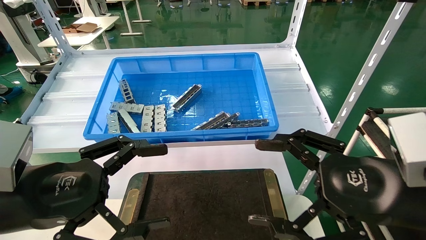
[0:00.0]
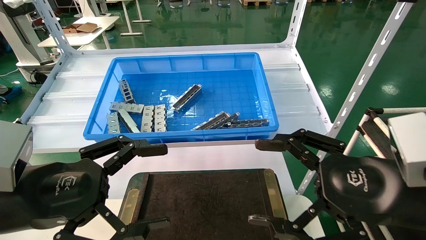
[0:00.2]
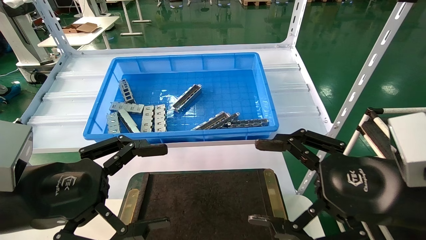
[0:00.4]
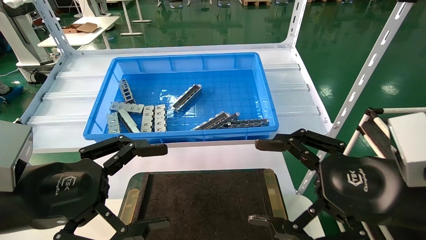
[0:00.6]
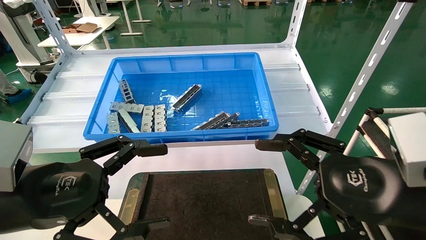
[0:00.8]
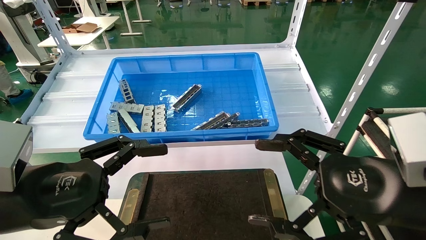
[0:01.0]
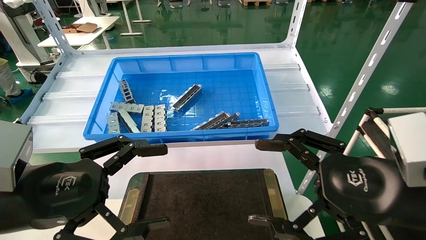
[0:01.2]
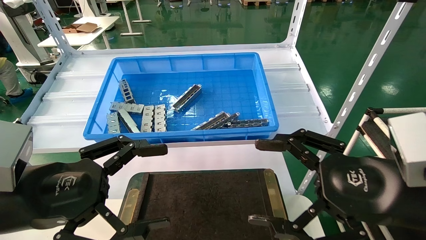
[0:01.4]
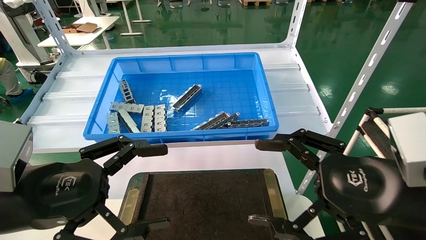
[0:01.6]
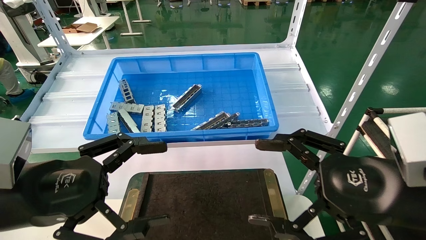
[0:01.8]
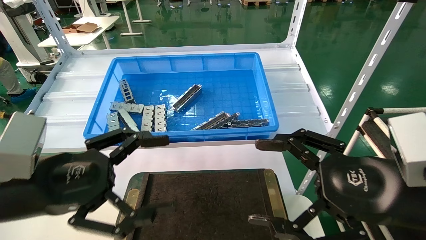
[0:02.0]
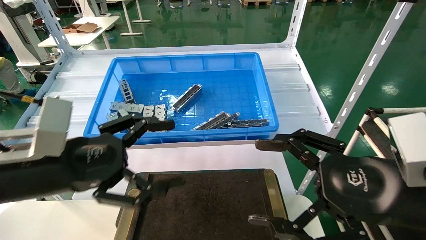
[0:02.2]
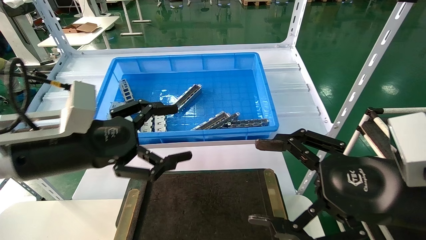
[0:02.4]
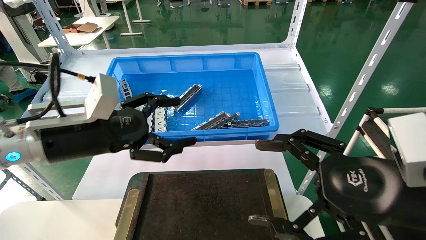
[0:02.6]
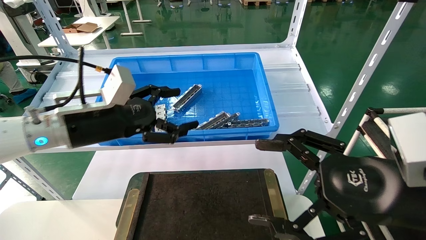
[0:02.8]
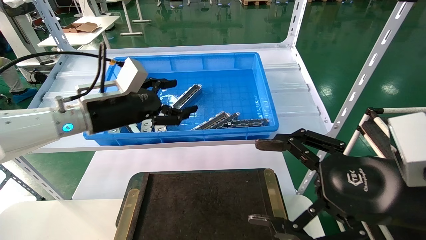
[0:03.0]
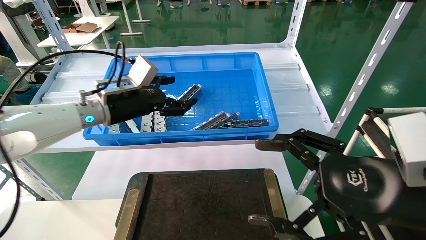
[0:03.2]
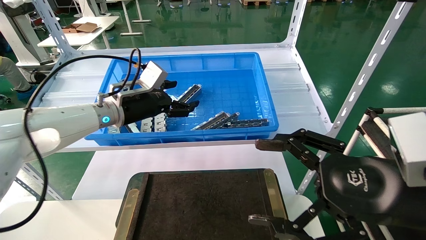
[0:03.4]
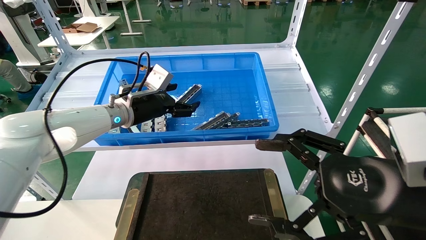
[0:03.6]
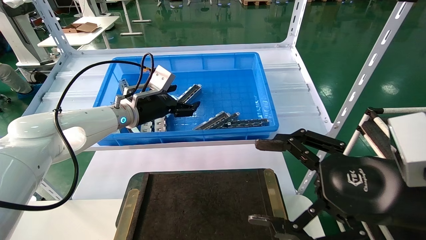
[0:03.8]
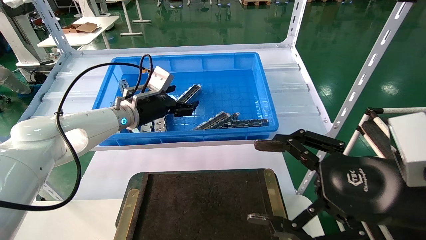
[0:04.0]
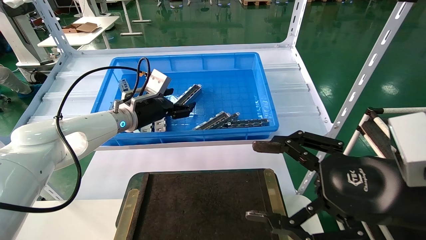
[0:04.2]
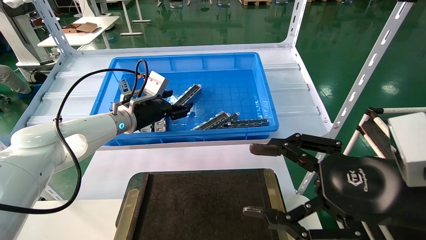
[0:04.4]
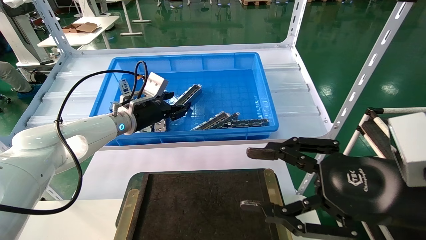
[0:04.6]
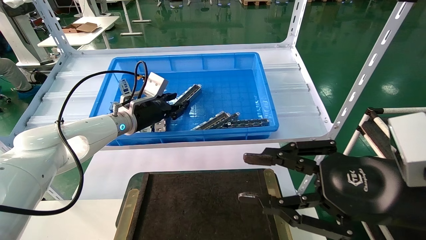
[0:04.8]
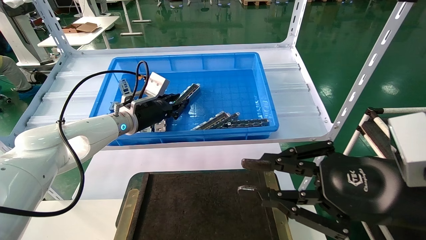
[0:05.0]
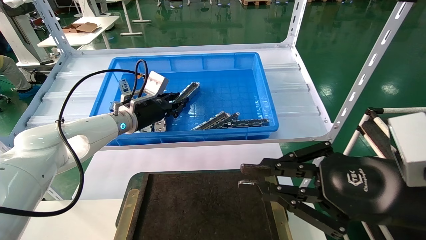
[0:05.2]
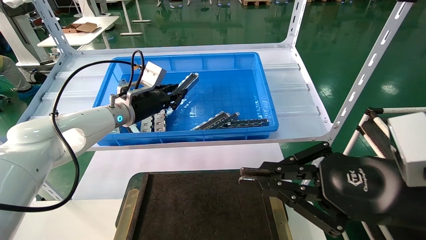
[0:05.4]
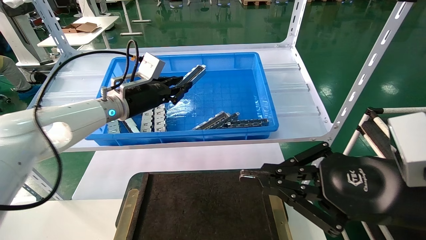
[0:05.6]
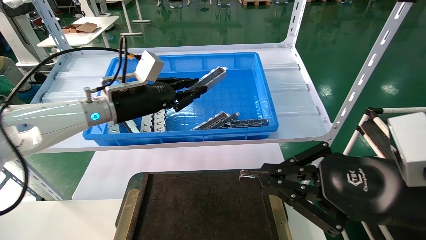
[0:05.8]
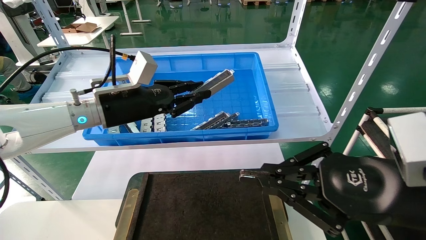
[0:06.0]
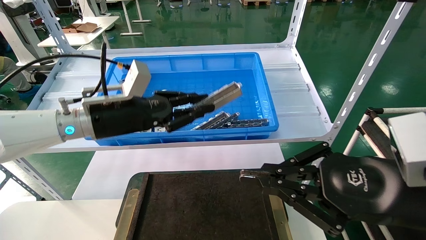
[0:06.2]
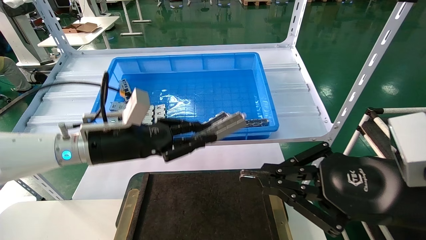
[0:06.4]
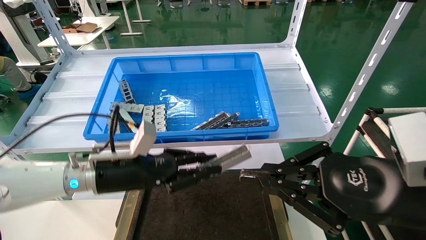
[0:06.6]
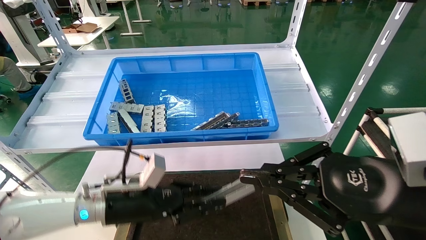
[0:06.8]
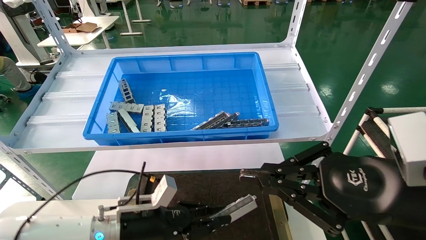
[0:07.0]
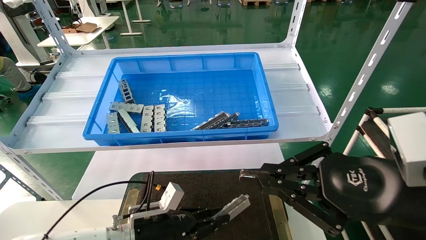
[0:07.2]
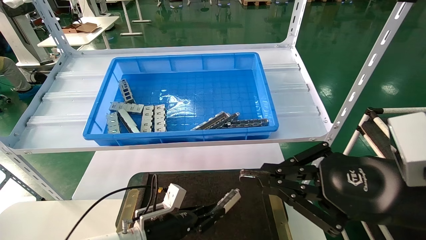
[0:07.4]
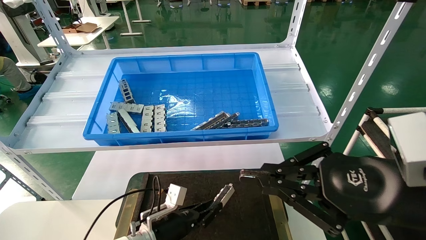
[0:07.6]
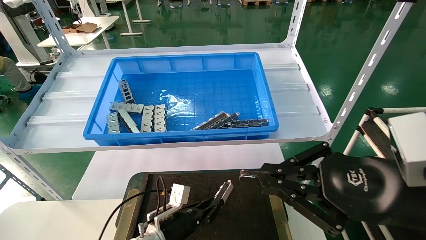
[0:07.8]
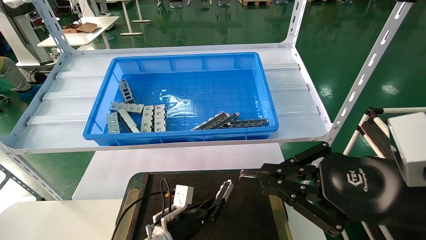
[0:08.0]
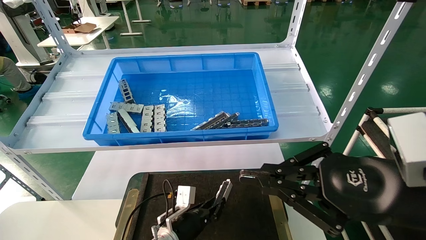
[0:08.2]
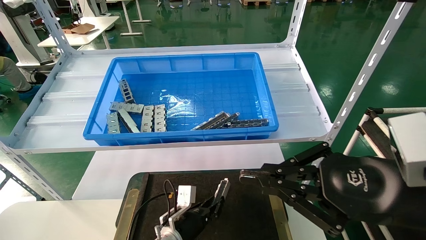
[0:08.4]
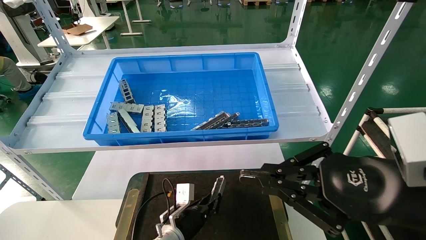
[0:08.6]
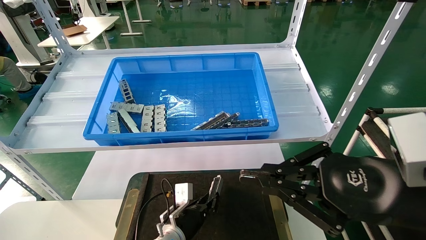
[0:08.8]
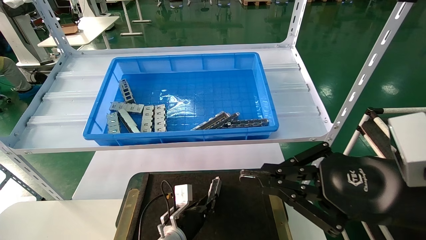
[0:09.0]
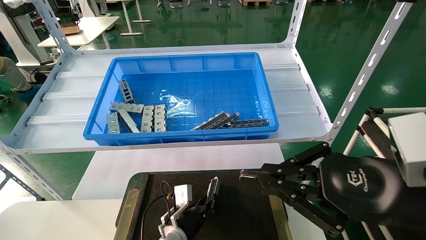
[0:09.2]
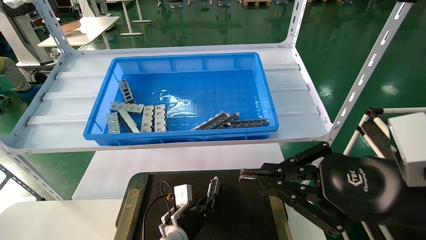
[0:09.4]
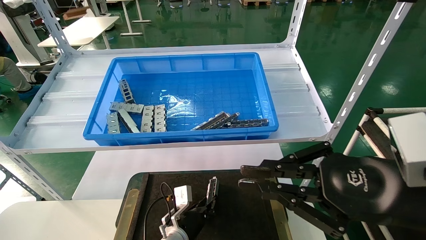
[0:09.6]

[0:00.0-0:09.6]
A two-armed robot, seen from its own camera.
Task of the whole recording: Grasp the part with one hand and place it on the black container.
Step, 0:02.4 to 0:05.4: Pick up the front USB bracket from the feeding area.
0:00.0 to 0:01.6: Both grippers stay put.
0:01.6 to 0:03.2: The left gripper is displaced forward by about 25 cm.
0:03.2 to 0:04.8: The right gripper closes. Meanwhile the left gripper goes roughly 5 cm forward, and closes.
0:04.8 to 0:06.4: The left gripper goes approximately 15 cm backward, and closes its fingers, while the right gripper closes.
0:06.4 to 0:08.0: The left gripper goes about 25 cm downward.
0:08.0 to 0:09.6: The grippers stay close to where they were, moving slightly.

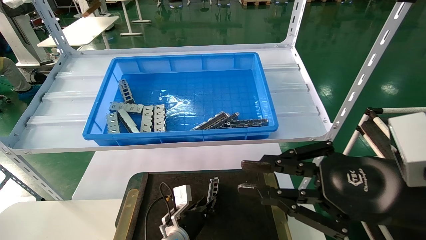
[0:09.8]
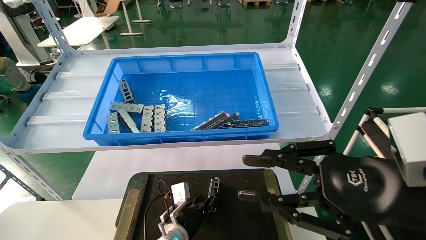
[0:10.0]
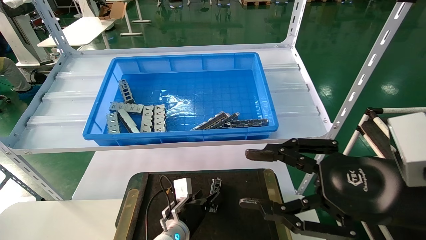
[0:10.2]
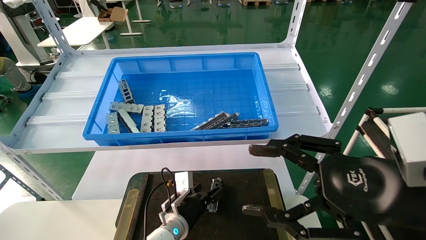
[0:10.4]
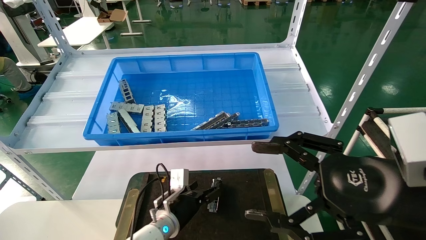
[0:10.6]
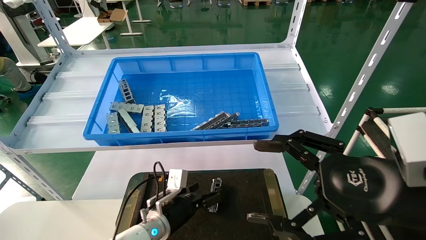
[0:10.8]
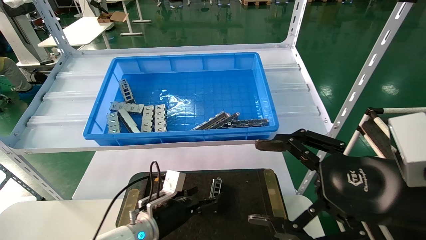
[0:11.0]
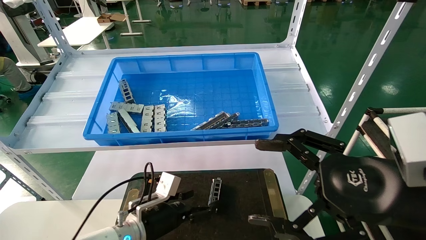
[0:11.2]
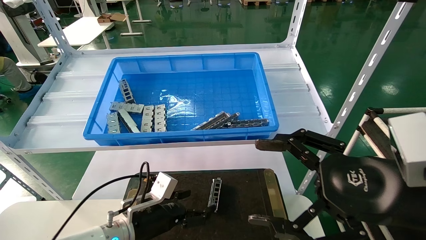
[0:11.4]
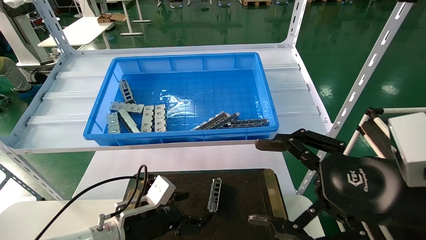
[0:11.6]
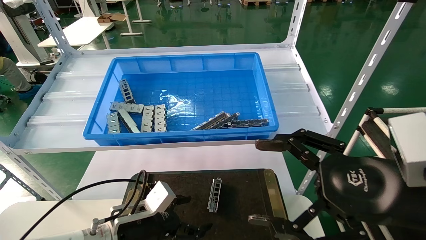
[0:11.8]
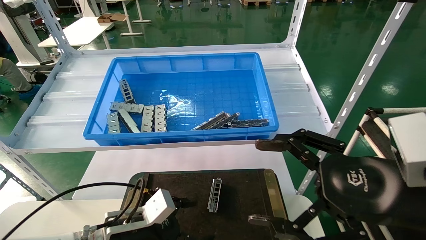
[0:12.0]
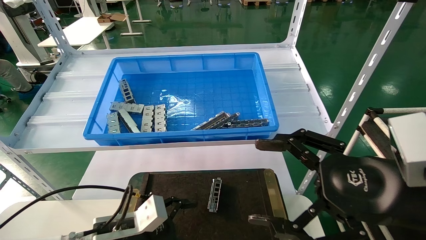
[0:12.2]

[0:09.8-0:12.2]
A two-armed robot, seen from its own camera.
Task of the whole recording: Grasp the part with one hand and place it on the black container.
0:09.8 to 0:11.0: The right gripper opens its fingers; the left gripper shifts about 10 cm upward and to the left, and opens.
0:11.0 to 0:12.2: The left gripper is displaced backward and to the left by roughly 10 cm.

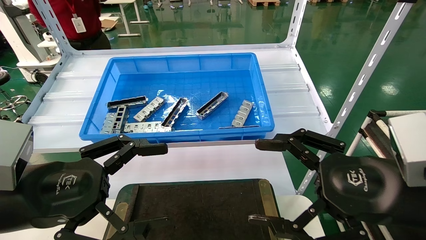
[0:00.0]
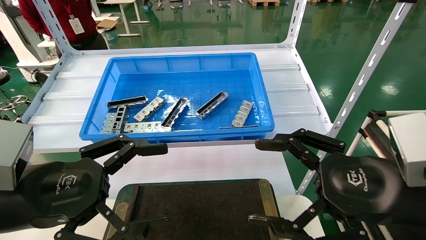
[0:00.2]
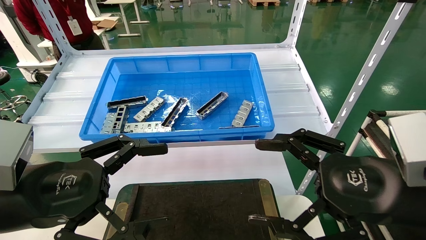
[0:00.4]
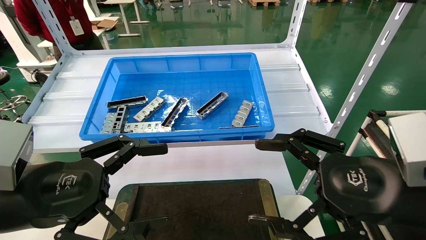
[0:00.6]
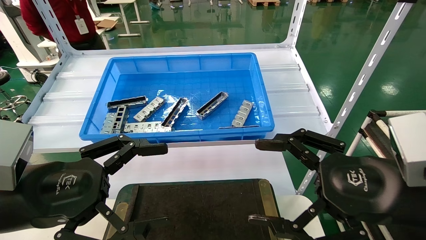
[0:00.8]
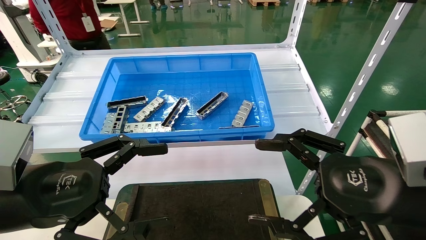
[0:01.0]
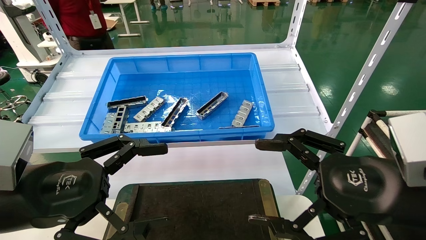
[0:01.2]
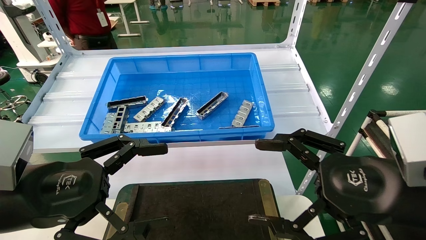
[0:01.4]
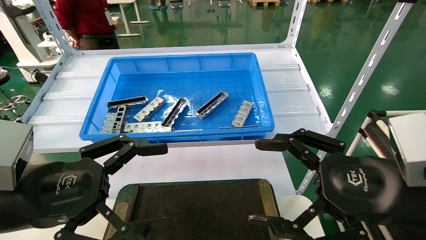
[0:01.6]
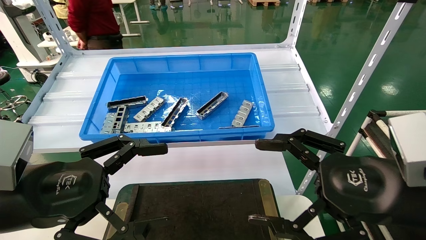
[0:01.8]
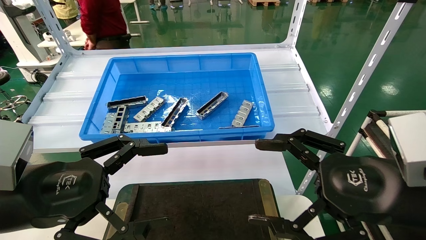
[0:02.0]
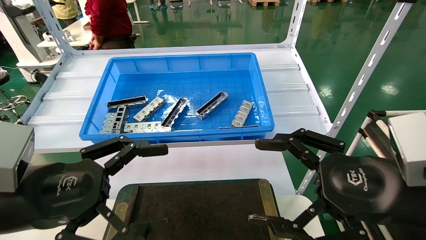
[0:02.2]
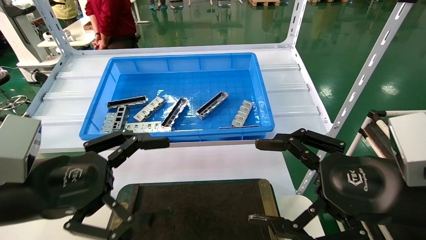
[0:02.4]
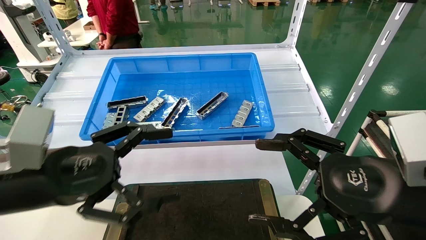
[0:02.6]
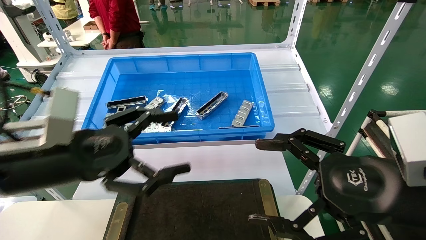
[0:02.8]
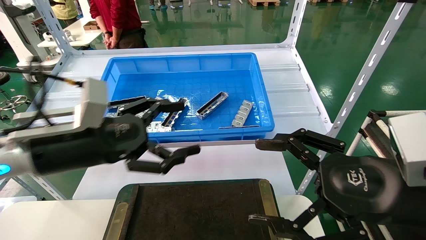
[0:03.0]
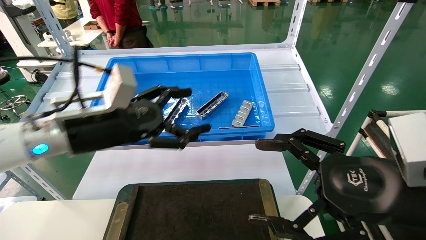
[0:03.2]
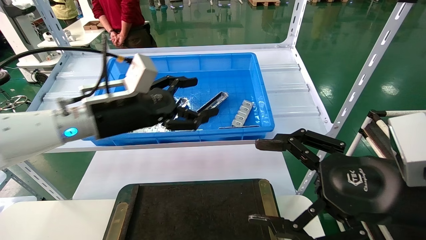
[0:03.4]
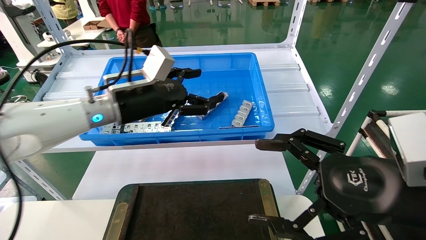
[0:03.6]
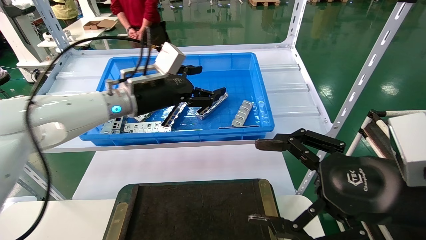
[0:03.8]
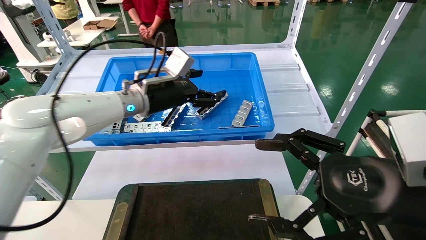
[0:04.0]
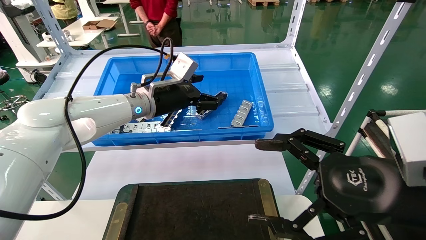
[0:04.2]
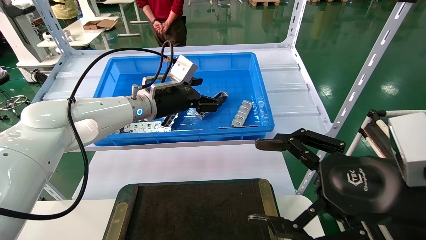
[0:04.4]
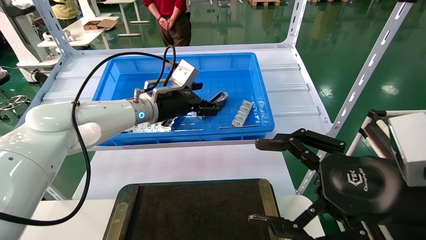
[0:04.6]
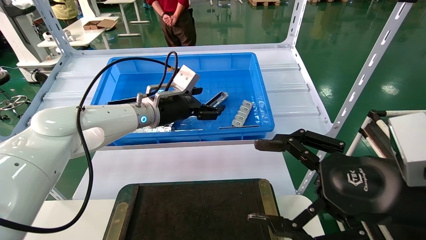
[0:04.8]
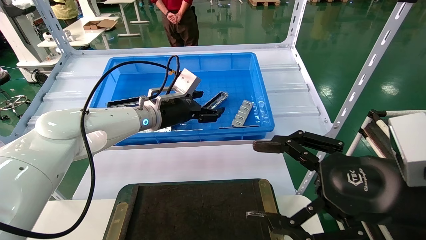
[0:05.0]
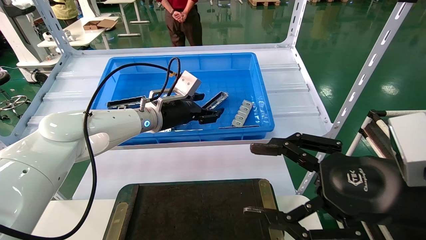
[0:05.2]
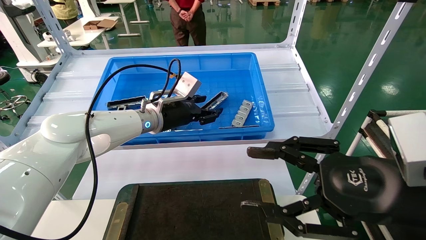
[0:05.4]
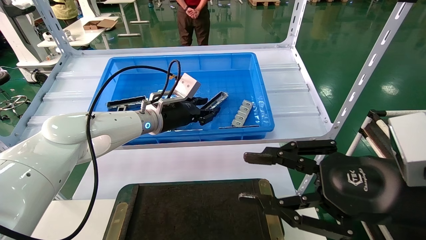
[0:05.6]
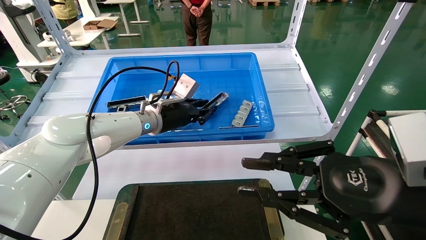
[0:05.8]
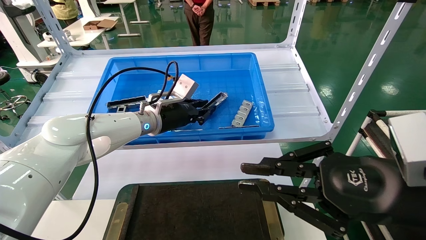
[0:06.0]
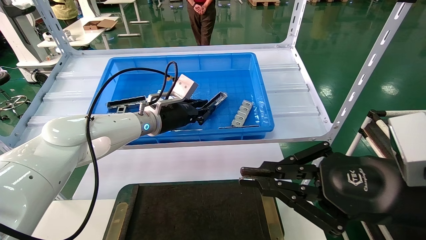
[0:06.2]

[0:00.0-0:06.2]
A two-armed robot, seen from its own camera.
Task of the whole recording: Grasp the part with one hand and place it on the black container.
0:00.0 to 0:01.6: The two grippers keep their place.
0:01.6 to 0:03.2: The left gripper goes approximately 15 cm forward.
0:03.2 to 0:04.6: The left gripper heads forward and to the right, covering approximately 15 cm.
0:04.6 to 0:06.2: The right gripper closes its fingers, while the left gripper closes up.
